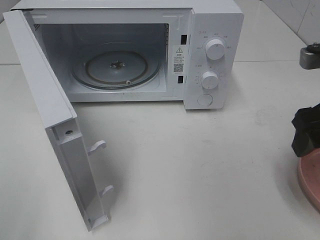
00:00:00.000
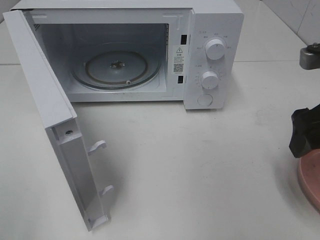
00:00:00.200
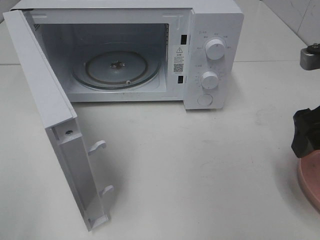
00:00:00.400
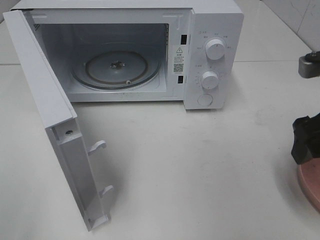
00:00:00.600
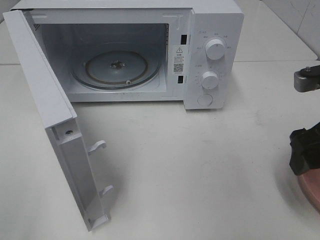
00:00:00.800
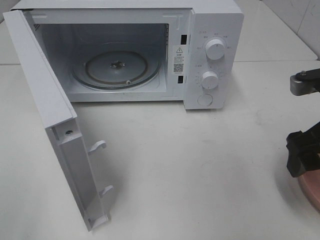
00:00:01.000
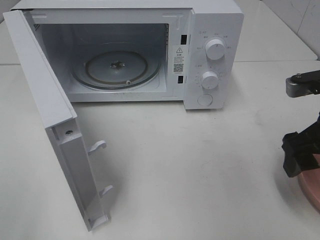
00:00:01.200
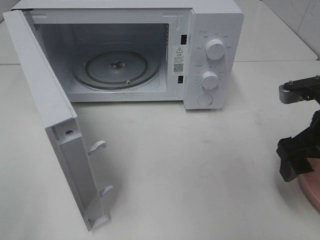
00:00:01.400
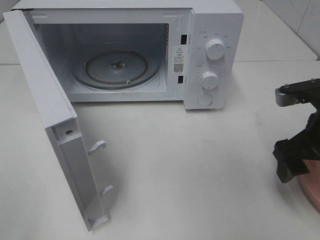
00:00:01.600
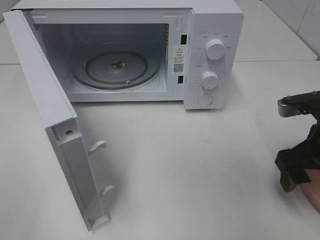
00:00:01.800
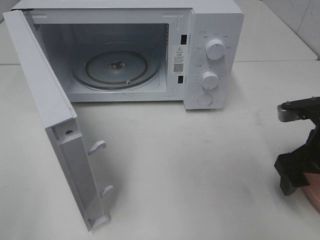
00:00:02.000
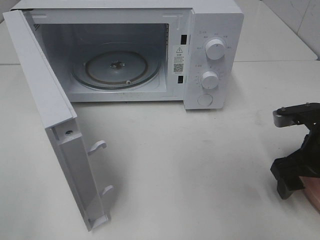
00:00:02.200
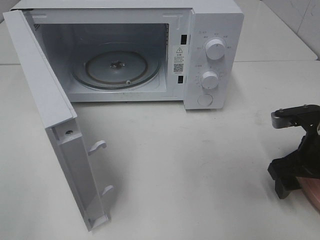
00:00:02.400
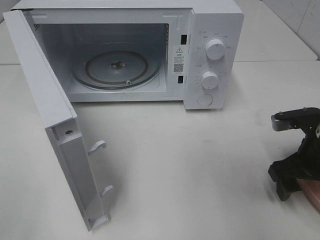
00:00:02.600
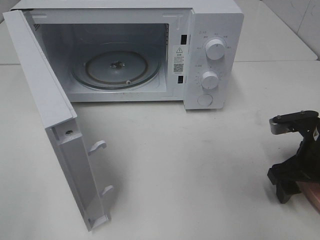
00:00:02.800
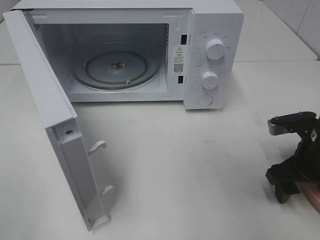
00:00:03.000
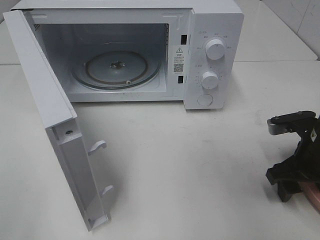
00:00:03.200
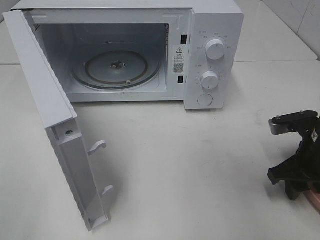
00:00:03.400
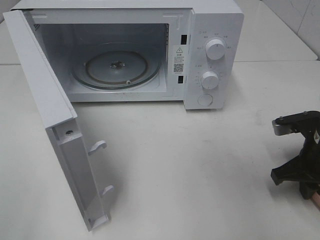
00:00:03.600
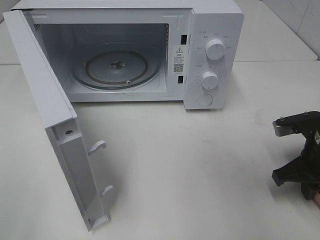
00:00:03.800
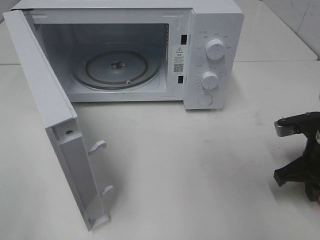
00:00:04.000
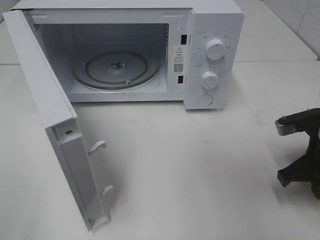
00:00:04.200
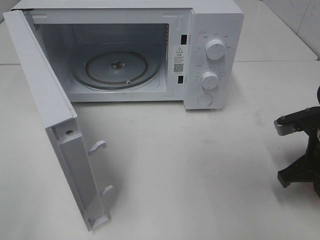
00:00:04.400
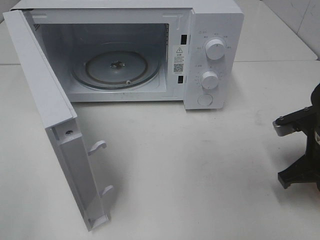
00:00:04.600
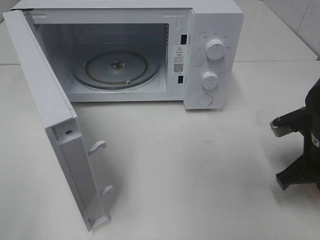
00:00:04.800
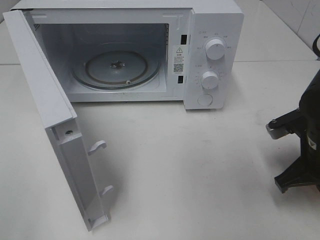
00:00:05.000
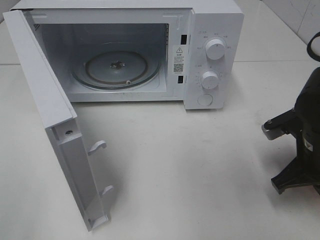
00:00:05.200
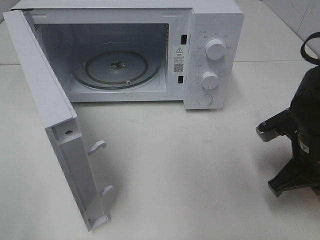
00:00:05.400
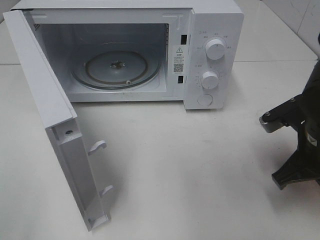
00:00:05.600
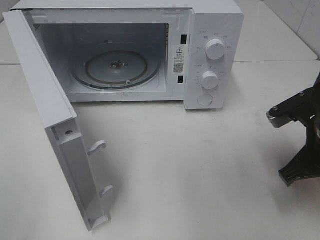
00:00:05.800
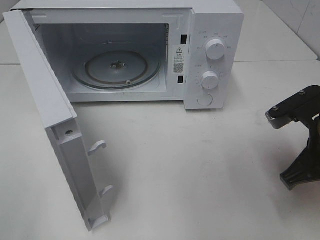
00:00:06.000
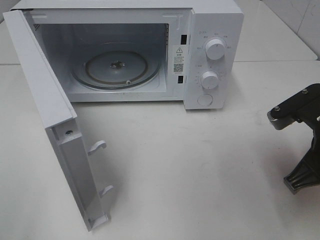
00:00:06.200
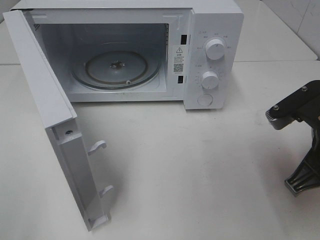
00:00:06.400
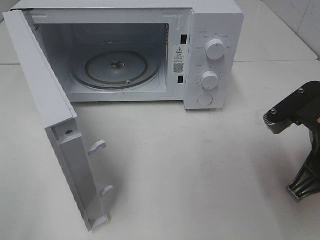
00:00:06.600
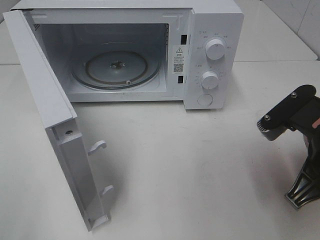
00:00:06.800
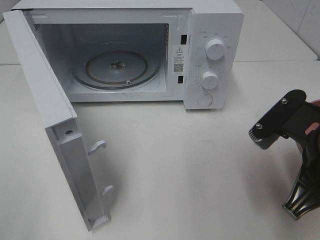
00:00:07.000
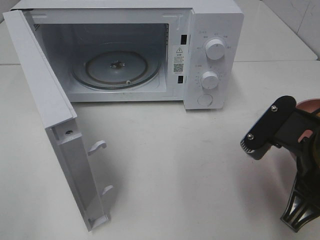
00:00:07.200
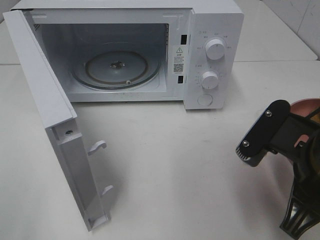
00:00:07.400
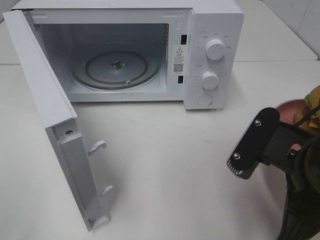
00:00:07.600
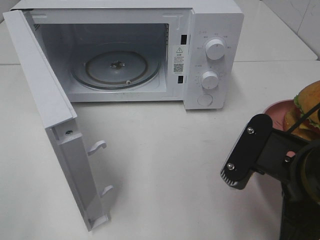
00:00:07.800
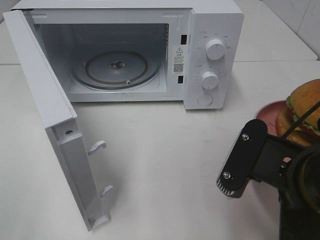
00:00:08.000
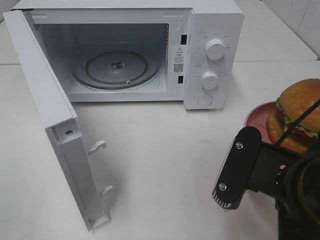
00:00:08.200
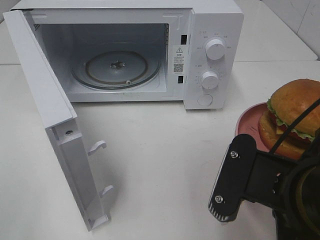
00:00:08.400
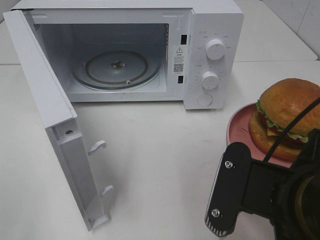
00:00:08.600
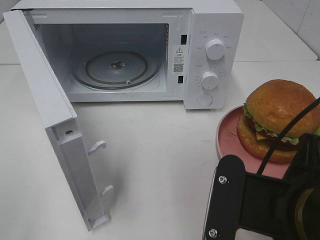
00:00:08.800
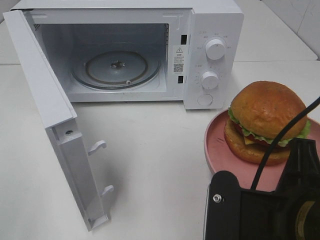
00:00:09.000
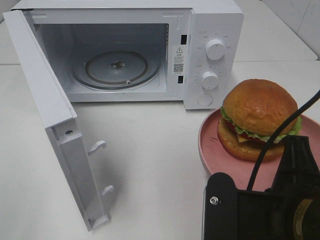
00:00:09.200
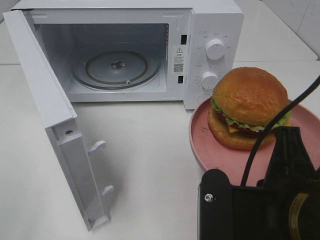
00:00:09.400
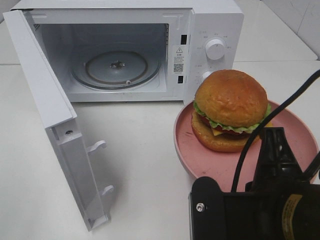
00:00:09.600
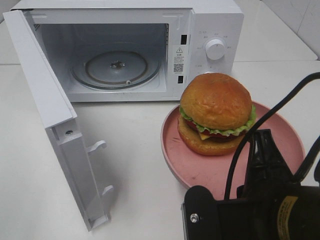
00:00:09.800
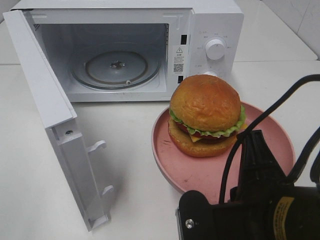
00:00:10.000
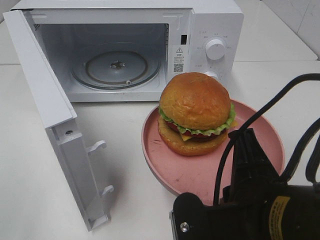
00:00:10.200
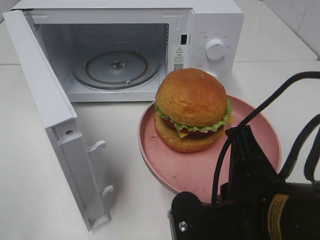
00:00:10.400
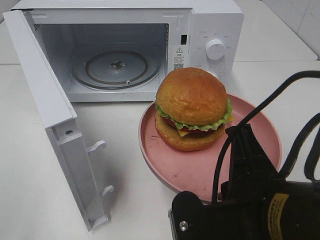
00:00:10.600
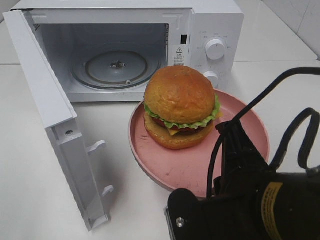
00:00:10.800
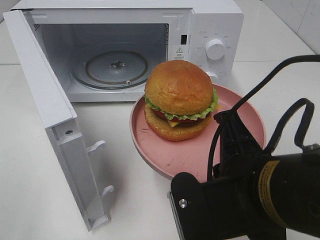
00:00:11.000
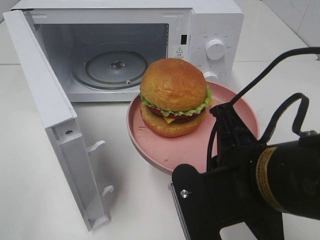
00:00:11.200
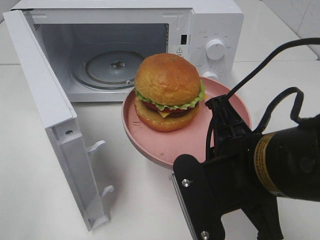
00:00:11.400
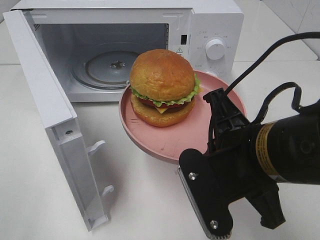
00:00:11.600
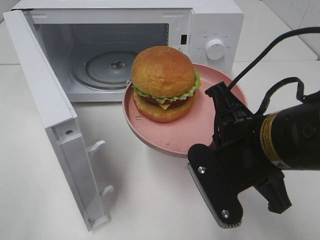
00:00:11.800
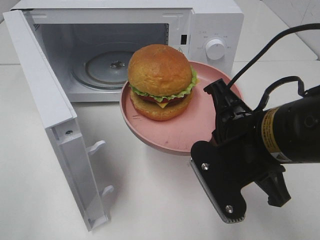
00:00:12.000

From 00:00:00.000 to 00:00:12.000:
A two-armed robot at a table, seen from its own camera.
Task of the whole recording: Heat the burger.
Step, from 00:00:00.000 to 00:00:04.400: Right hand: grab the plate with the hamburger.
From 00:00:00.000 to 00:00:01.600: The right gripper is displaced downward by roughly 5 cm.
From 00:00:01.600 to 00:00:03.000: The right gripper is displaced downward by about 5 cm.
From 00:00:03.000 to 00:00:04.400: The right gripper closes its fingers.
From 00:00:04.400 to 00:00:06.000: The right gripper shifts about 5 cm upward.
From 00:00:06.000 to 00:00:07.600: The right gripper moves backward and to the left, roughly 10 cm.
From 00:00:07.600 to 00:00:09.000: The right gripper goes about 5 cm backward.
From 00:00:10.400 to 00:00:12.000: The right gripper moves forward, some 10 cm.

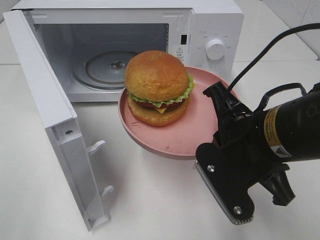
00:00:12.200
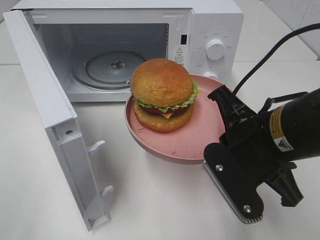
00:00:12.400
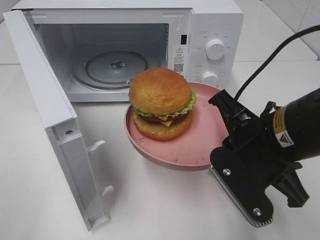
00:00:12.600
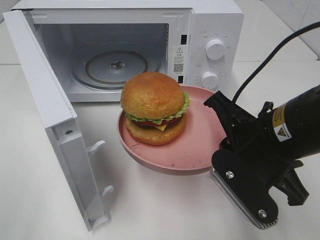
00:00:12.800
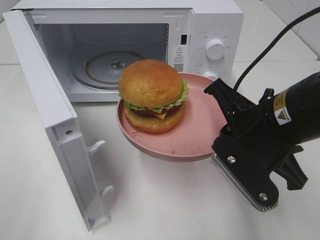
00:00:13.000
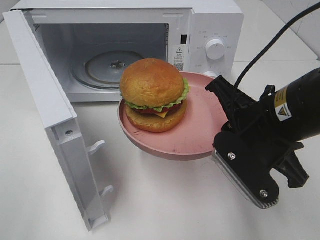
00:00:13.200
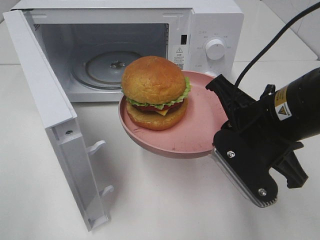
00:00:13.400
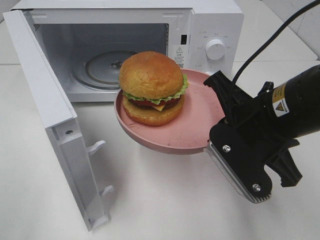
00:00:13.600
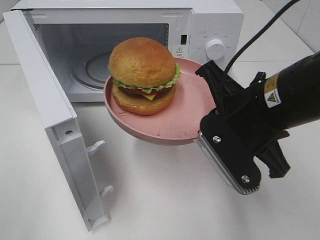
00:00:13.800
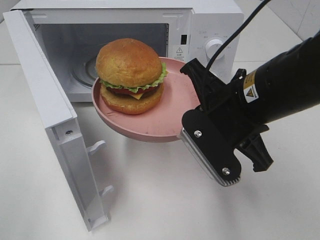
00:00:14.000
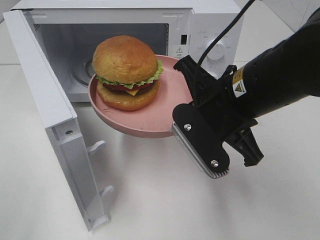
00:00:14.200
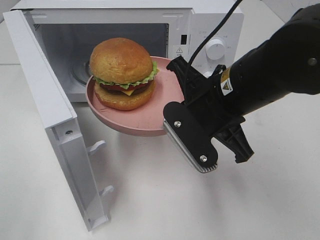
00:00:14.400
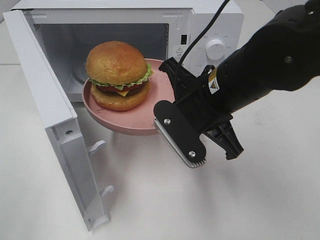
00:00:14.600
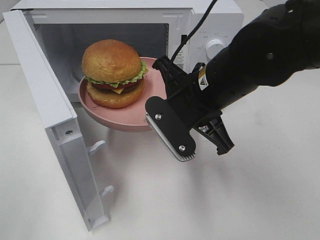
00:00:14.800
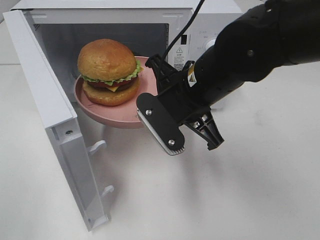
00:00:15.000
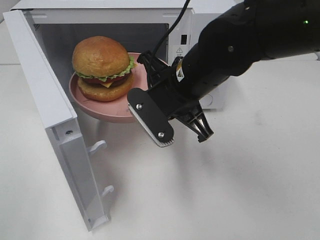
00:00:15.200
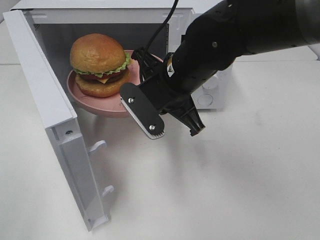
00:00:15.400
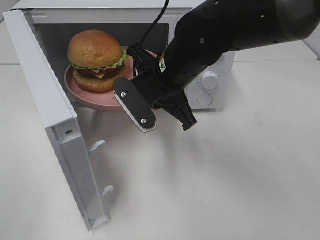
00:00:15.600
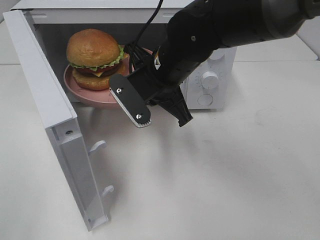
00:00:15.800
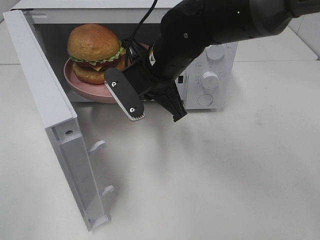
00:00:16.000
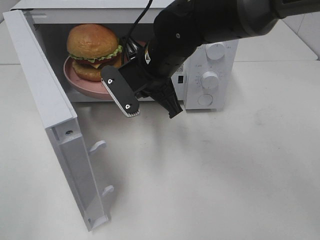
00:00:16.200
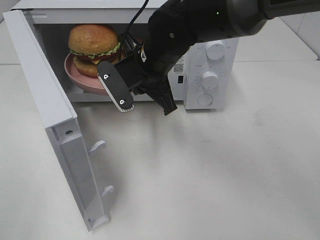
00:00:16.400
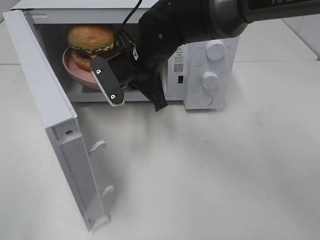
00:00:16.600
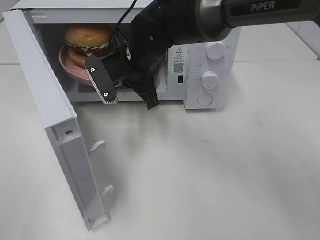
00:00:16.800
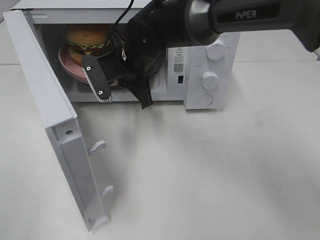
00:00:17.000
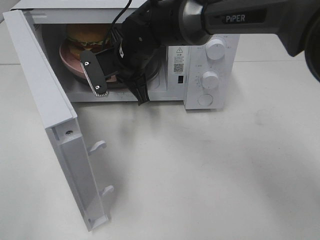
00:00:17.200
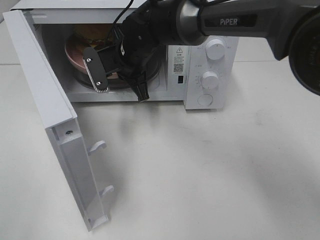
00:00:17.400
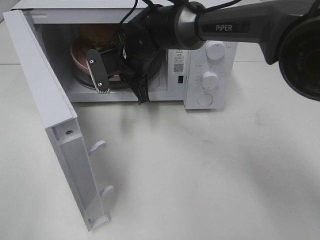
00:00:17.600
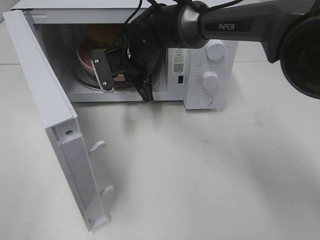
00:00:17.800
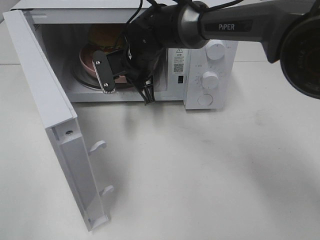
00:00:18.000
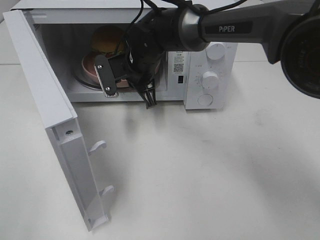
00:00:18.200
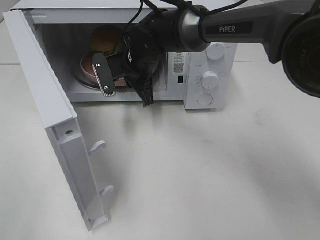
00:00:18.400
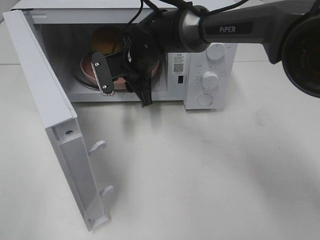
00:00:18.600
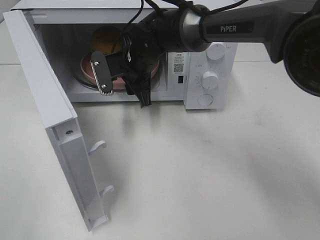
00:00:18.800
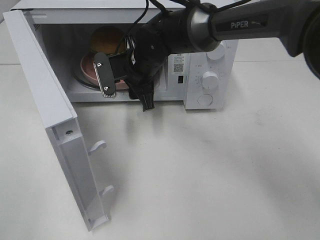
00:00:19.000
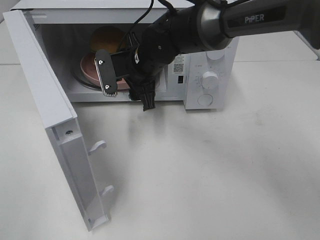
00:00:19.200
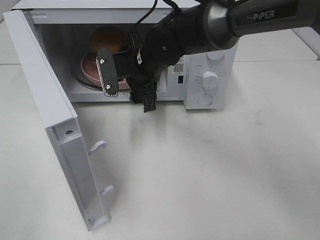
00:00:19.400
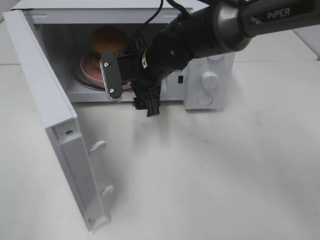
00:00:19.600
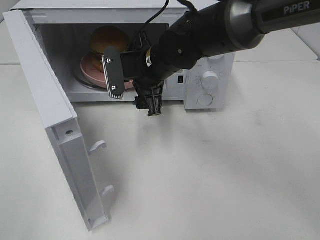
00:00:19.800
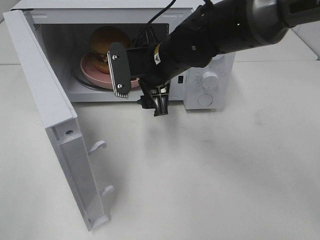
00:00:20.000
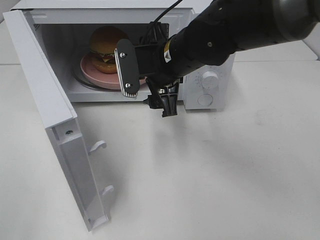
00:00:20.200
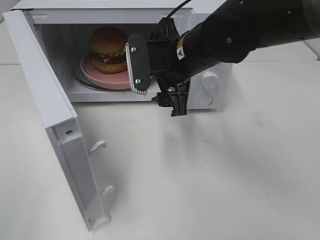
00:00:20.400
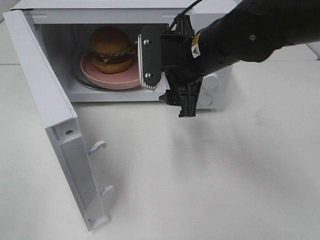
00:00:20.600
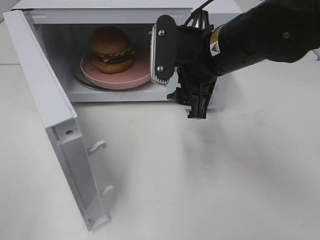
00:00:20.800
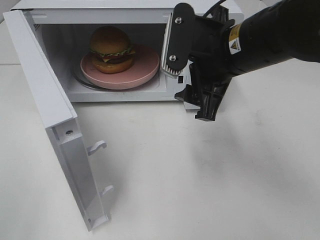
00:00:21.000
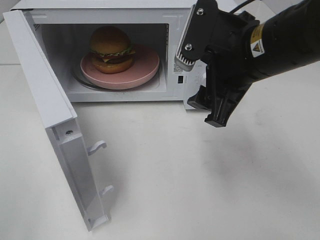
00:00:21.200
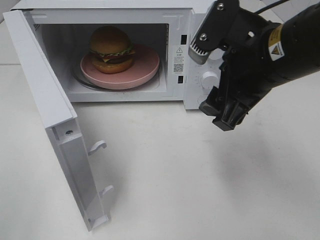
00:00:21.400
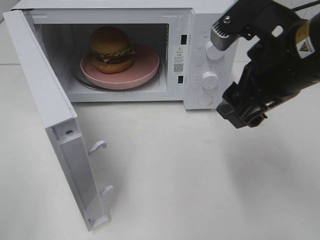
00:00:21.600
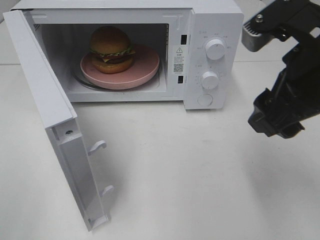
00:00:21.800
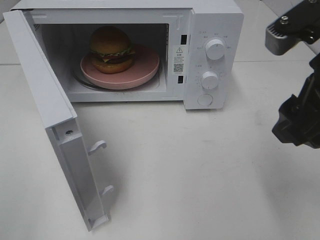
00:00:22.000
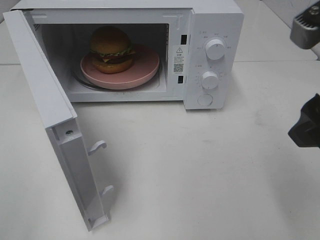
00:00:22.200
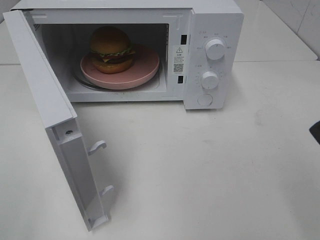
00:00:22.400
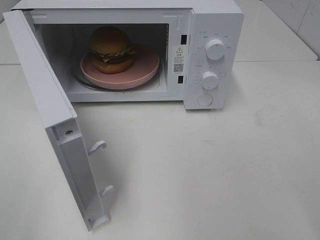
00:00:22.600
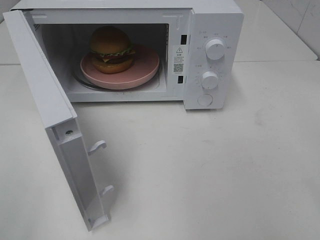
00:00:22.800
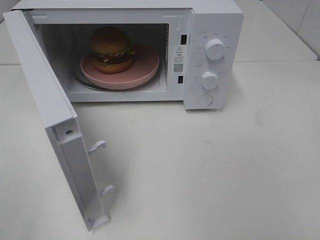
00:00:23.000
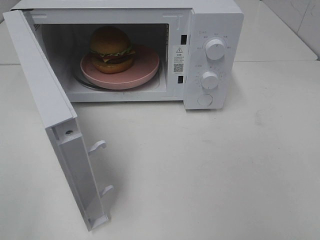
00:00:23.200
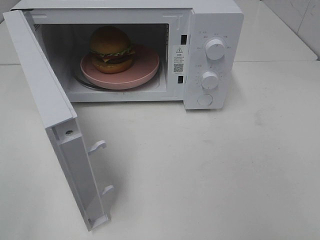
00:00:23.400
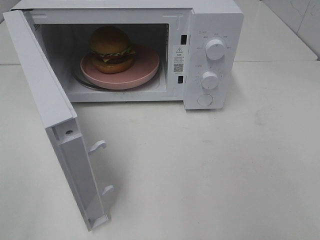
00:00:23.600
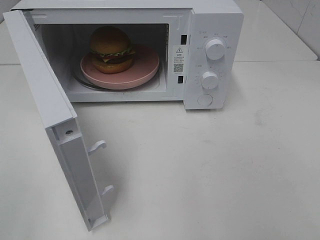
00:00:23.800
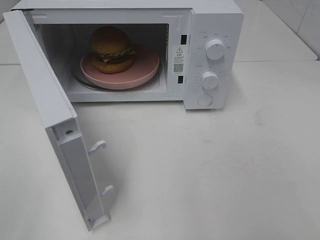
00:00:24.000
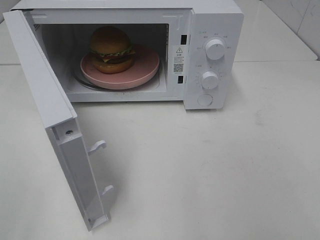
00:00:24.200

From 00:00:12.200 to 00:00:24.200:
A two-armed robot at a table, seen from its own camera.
Task of the whole recording: Heat the burger.
Step, from 00:00:12.200 to 00:00:19.000: Right hand: place the plate in the microwave.
From 00:00:13.800 to 00:00:15.200: The right gripper goes about 10 cm forward and to the left.
From 00:00:15.200 to 00:00:16.600: The right gripper travels forward and to the left by roughly 10 cm.
From 00:00:16.600 to 00:00:18.200: The right gripper heads forward, covering some 5 cm.
From 00:00:18.200 to 00:00:19.800: The right gripper goes some 5 cm backward, and opens up.
From 00:00:19.800 to 00:00:21.200: The right gripper moves backward, to the right and upward, some 20 cm.
From 00:00:21.200 to 00:00:22.600: The right gripper heads backward, to the right and upward, covering roughly 20 cm.
